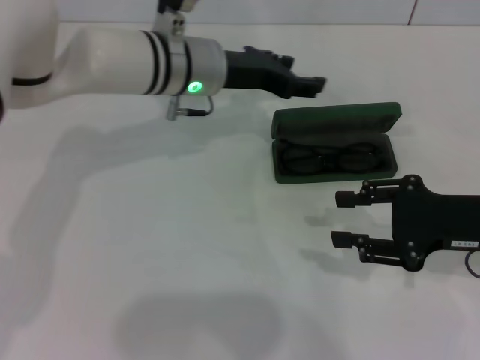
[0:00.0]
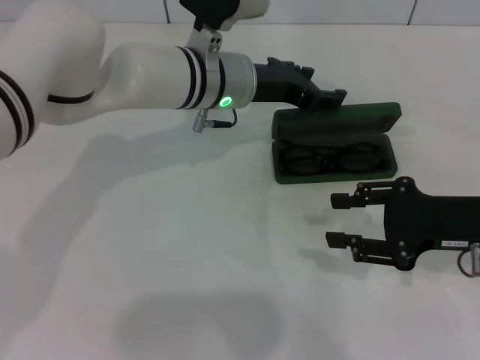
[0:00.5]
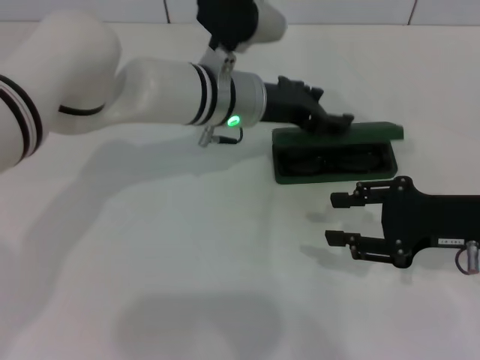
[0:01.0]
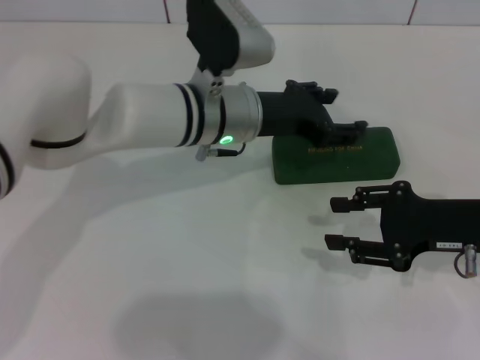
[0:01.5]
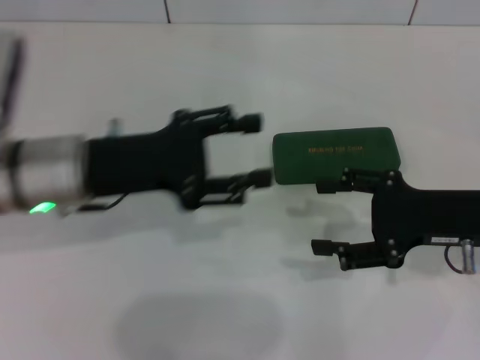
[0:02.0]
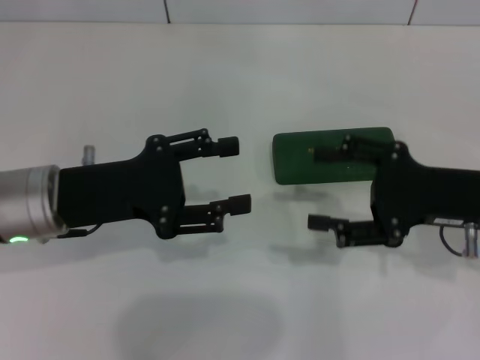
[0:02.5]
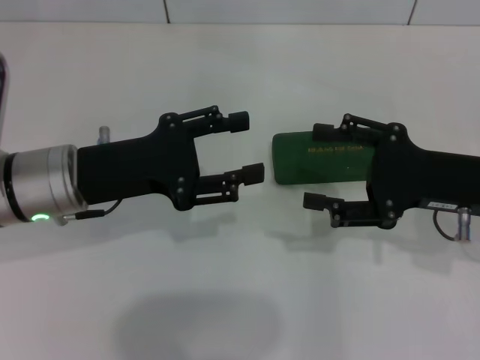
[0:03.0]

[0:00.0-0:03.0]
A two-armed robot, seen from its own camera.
0:00.0 to 0:01.5: The left gripper moves some 5 cm.
0:01.5 to 0:03.0: The left gripper shifts roughly 15 cm to the left and backward. Meanwhile the right gripper opens its fingers.

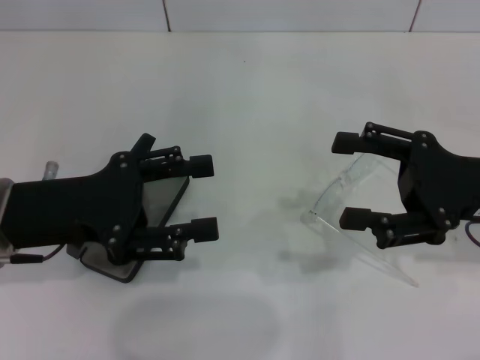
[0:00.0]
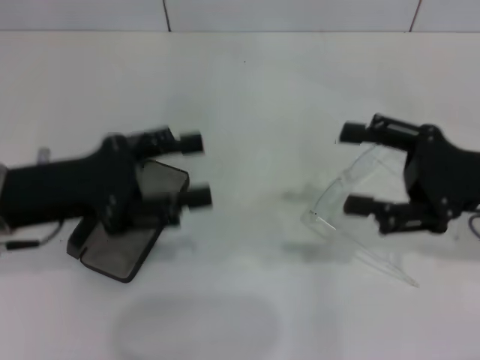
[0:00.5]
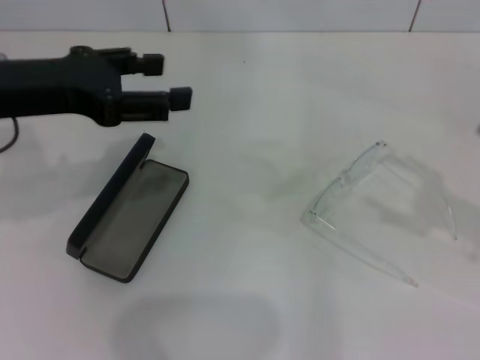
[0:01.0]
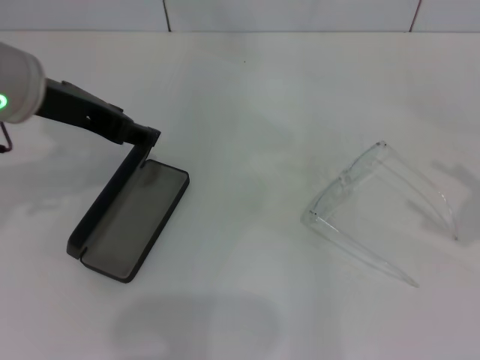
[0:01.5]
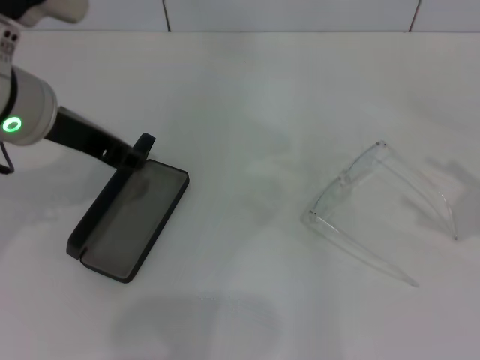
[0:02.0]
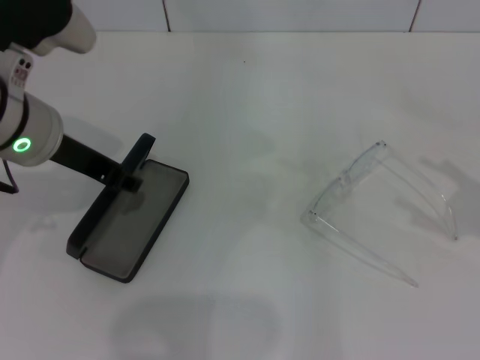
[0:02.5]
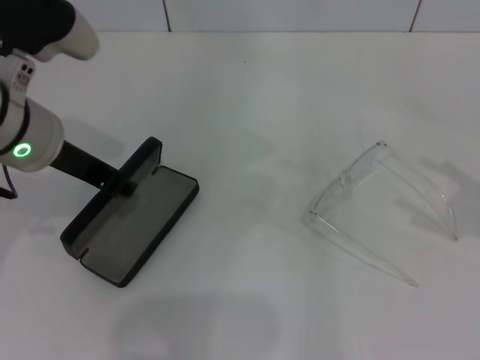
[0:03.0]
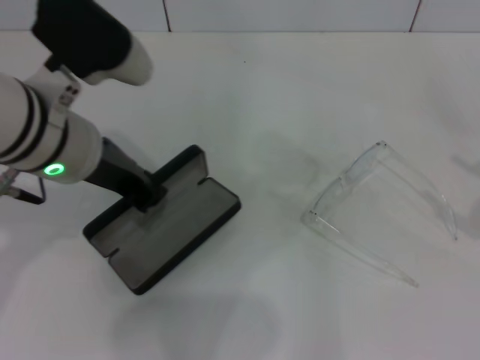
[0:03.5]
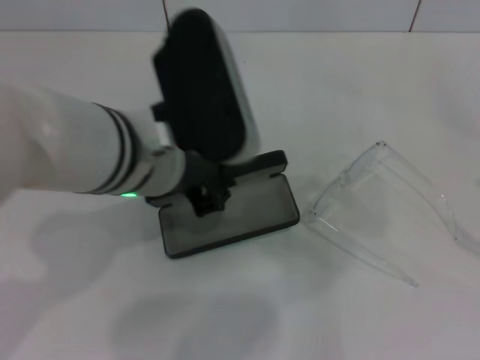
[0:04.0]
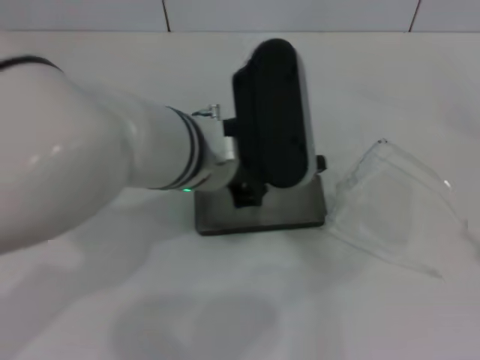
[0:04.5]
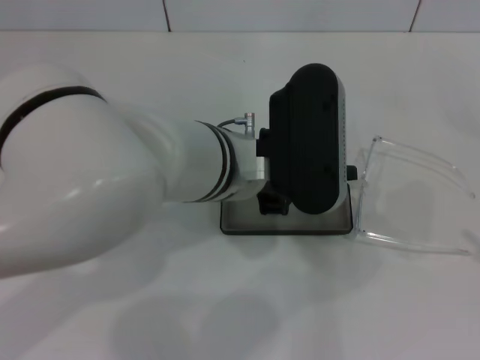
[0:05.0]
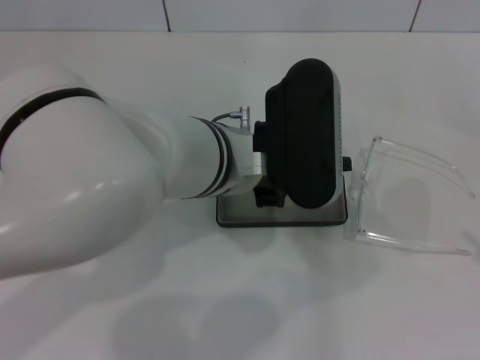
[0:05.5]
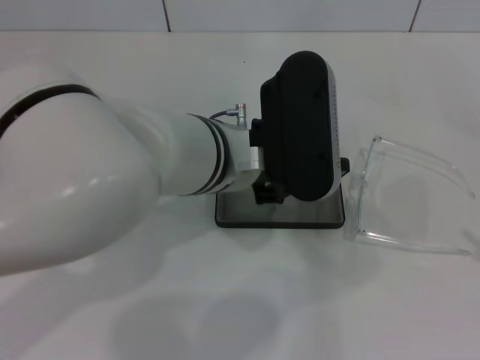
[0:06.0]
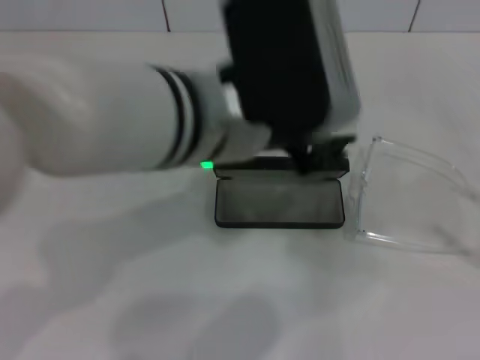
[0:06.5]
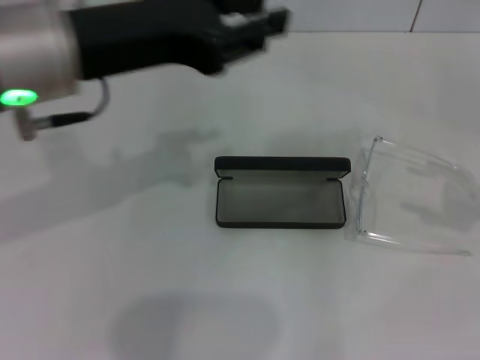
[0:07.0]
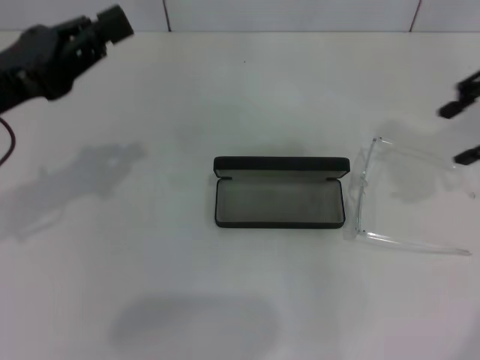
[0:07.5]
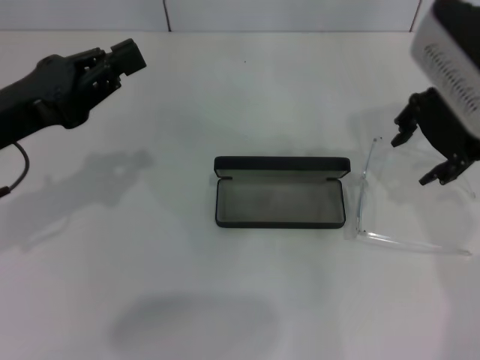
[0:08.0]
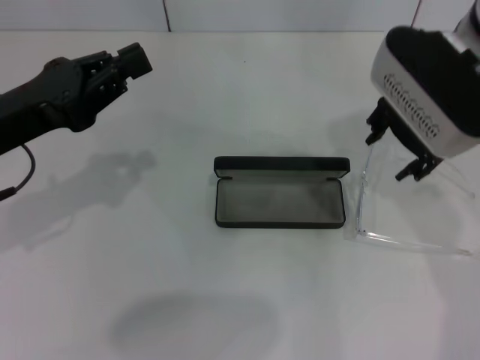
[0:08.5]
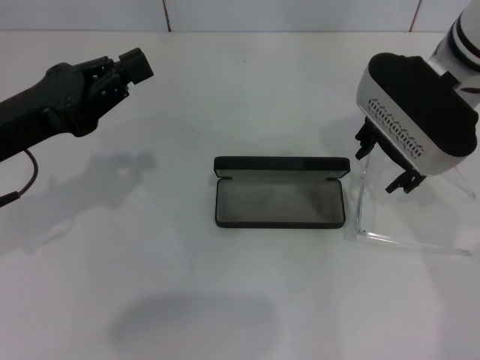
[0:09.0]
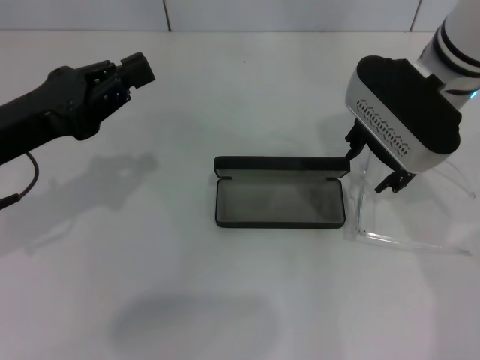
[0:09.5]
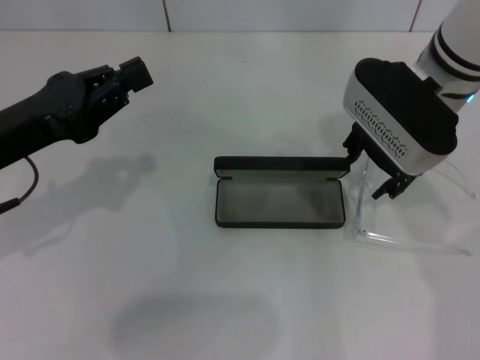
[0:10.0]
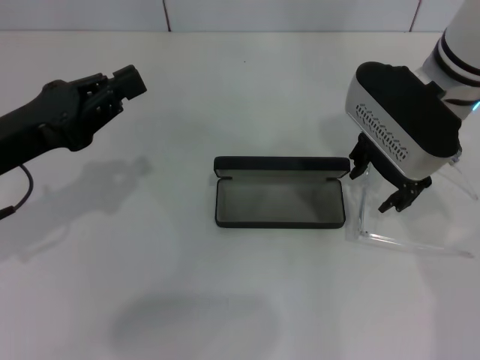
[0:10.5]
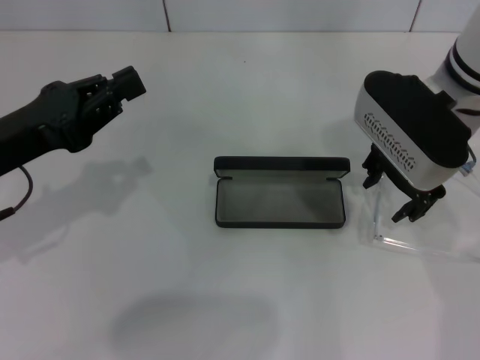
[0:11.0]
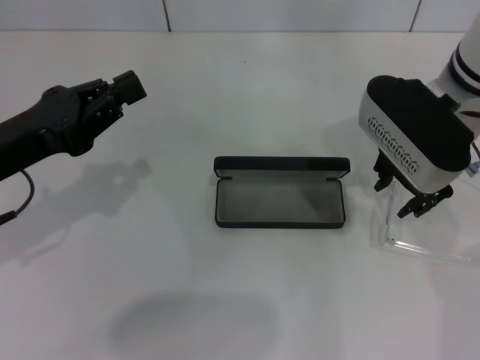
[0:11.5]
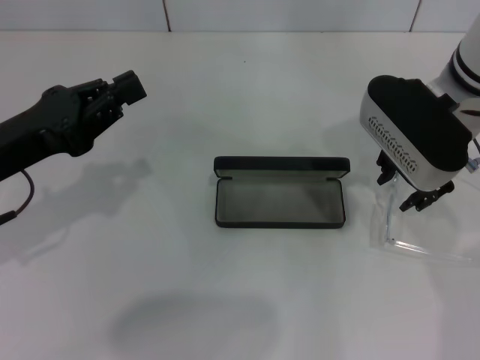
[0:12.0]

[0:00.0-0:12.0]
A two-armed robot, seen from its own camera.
Step, 0:00.0 to 0:03.0: Grab the glasses case with your left hand.
Step, 0:03.5 to 0:05.5: Place the glasses case in the center of the table with your left hand.
0:00.0 to 0:02.0: The left gripper shifts approximately 10 cm upward, forward and to the right. The right gripper moves to the right and backward, about 15 cm.
0:02.0 to 0:04.0: The left gripper goes roughly 10 cm to the right, and closes up, while the right gripper is displaced backward by roughly 5 cm.
0:04.0 to 0:06.0: The left gripper goes about 5 cm to the right.
0:06.0 to 0:08.0: The right gripper moves forward, to the left and upward, approximately 35 cm. Meanwhile the left gripper is displaced to the left by some 25 cm.
0:08.0 to 0:10.0: The right gripper travels downward by about 5 cm.
0:10.0 to 0:12.0: The grippers stay close to where they were, moving slightly.

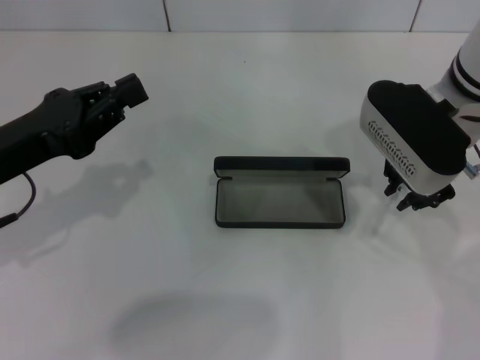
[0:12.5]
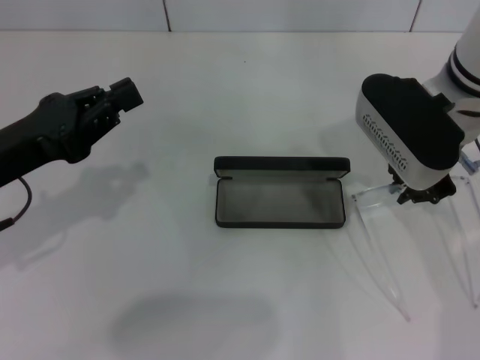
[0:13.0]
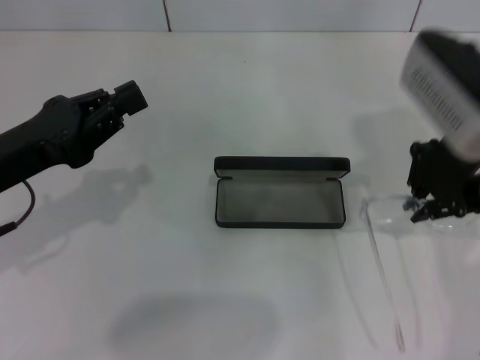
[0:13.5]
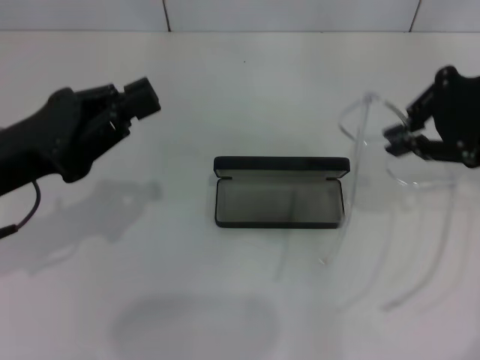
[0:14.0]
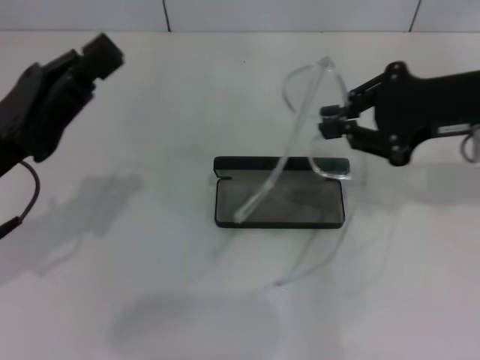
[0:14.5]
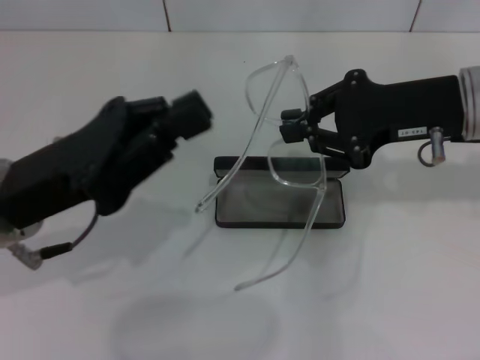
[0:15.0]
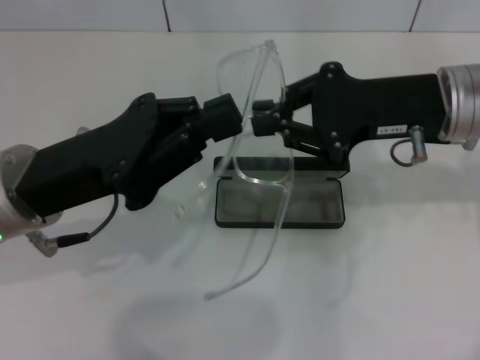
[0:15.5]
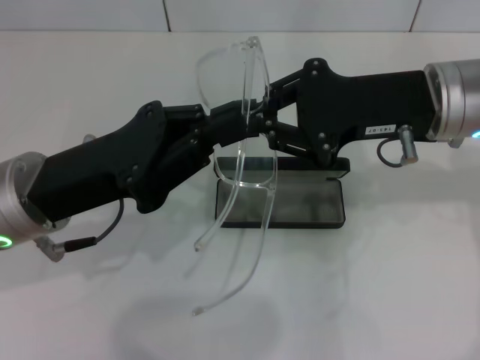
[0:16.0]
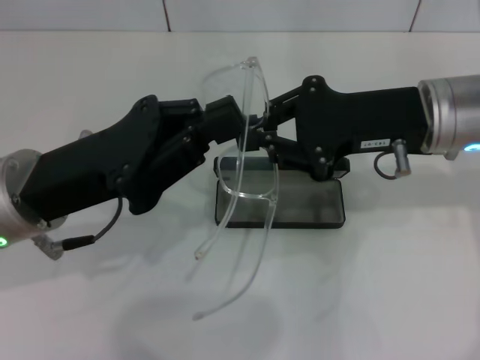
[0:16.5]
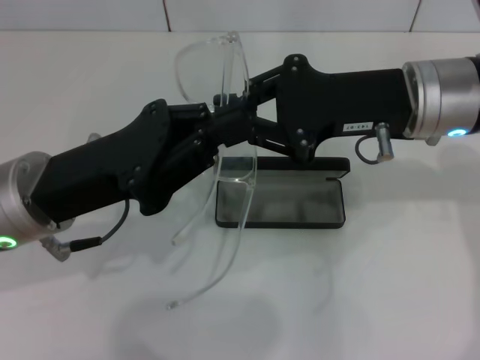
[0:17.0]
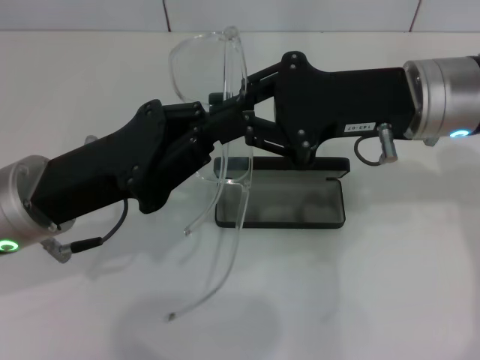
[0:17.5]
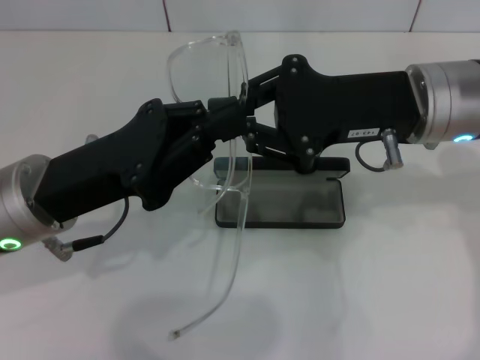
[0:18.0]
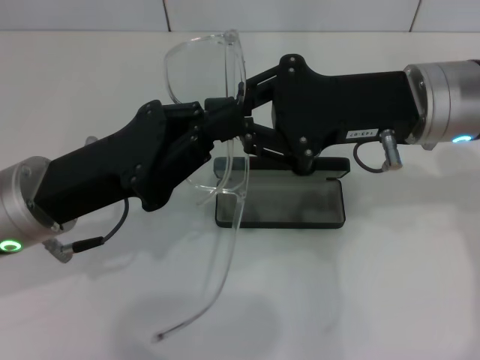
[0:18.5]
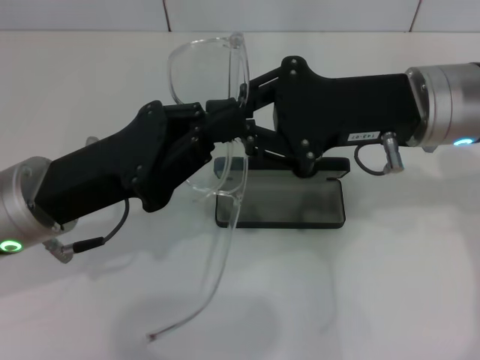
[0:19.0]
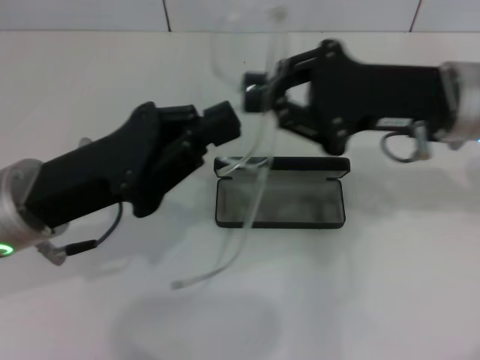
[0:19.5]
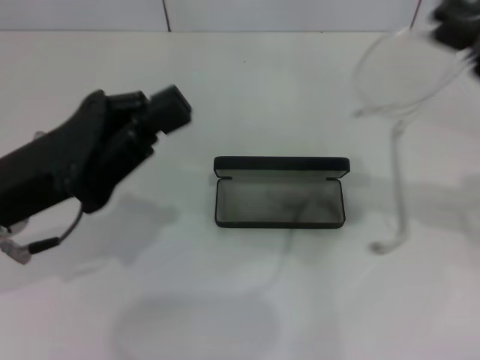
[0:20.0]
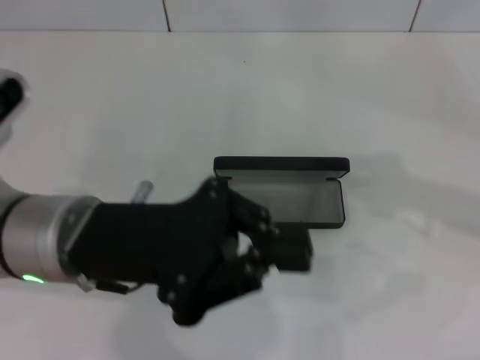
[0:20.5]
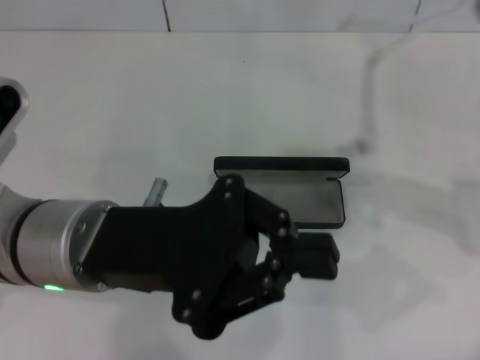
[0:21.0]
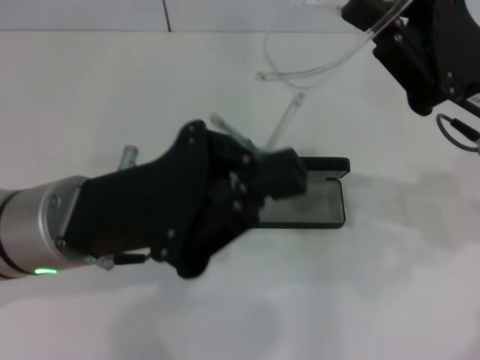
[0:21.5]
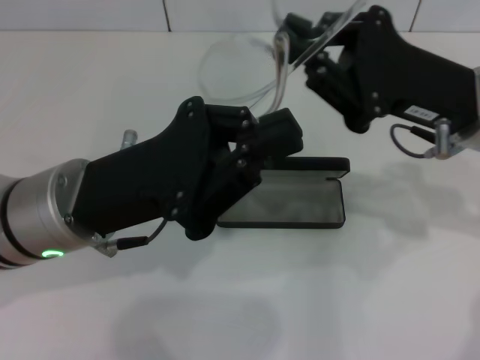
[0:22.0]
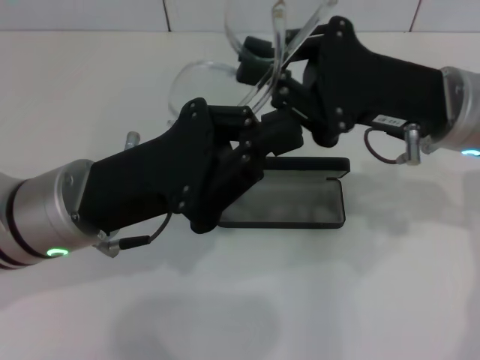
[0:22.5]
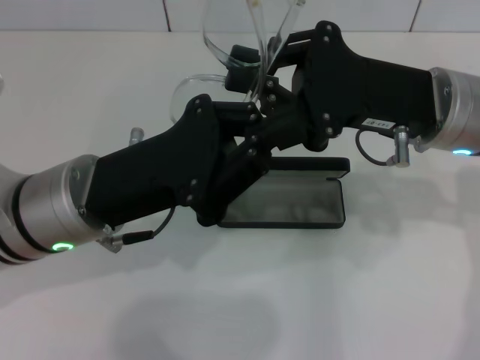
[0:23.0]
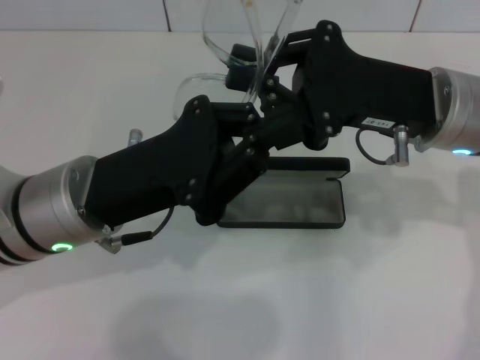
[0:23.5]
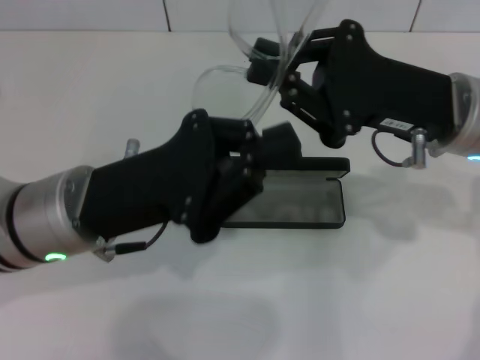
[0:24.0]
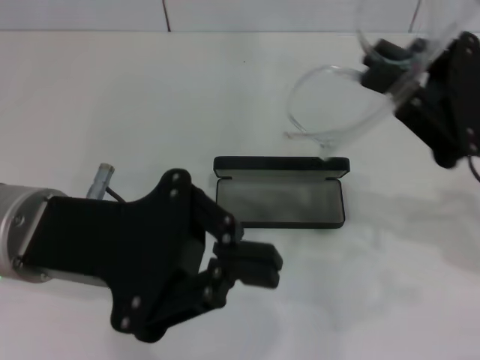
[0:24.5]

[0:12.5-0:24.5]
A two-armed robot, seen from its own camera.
Step, 0:13.0 to 0:23.5: Fold the frame with your left hand.
0:12.5 to 0:14.5: The right gripper moves to the right, roughly 5 cm.
0:14.5 to 0:16.5: The left gripper moves to the right, approximately 5 cm. Meanwhile the right gripper goes approximately 5 cm to the left.
0:16.5 to 0:18.5: There are only small adjustments of the grippers.
0:18.5 to 0:20.5: The right gripper heads to the right, covering some 15 cm.
0:20.5 to 0:22.5: The right gripper shifts about 15 cm to the left.
0:22.5 to 0:24.5: The right gripper goes some 10 cm to the right.
